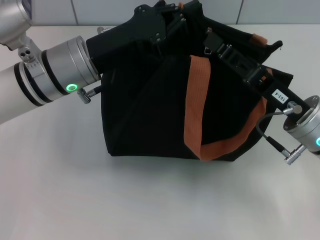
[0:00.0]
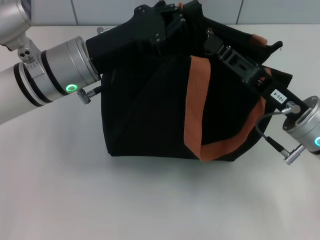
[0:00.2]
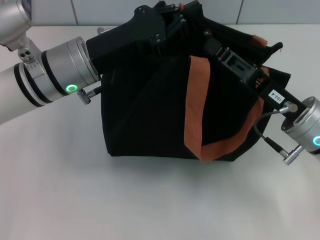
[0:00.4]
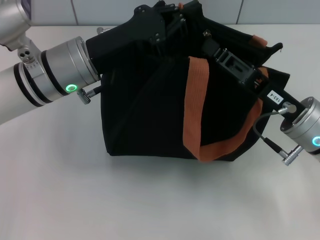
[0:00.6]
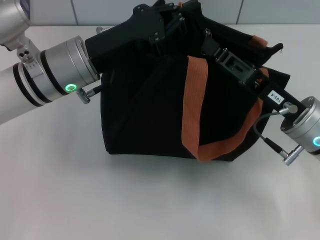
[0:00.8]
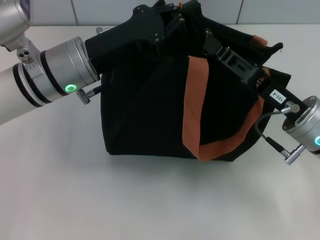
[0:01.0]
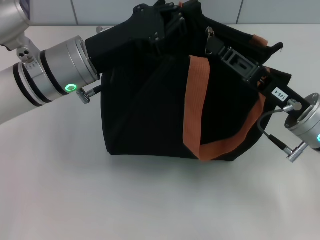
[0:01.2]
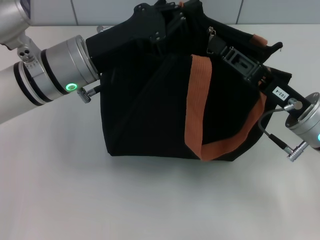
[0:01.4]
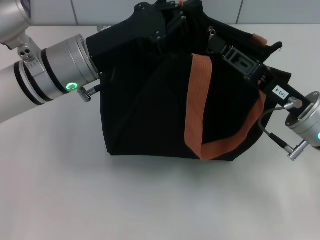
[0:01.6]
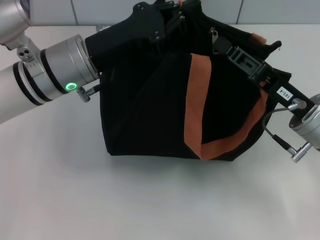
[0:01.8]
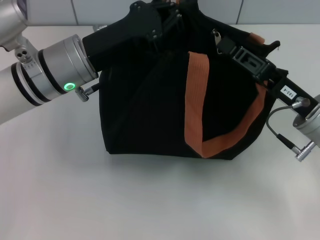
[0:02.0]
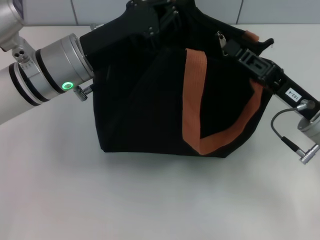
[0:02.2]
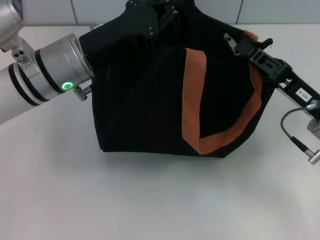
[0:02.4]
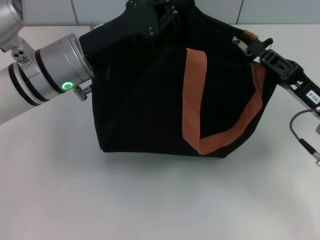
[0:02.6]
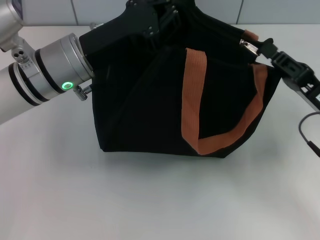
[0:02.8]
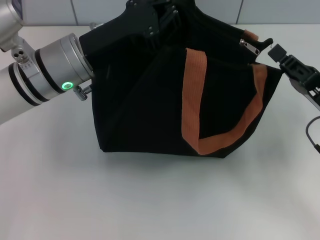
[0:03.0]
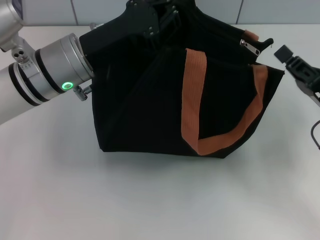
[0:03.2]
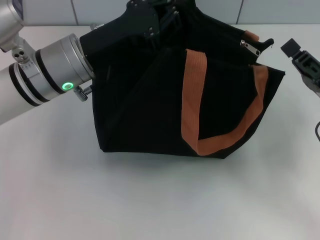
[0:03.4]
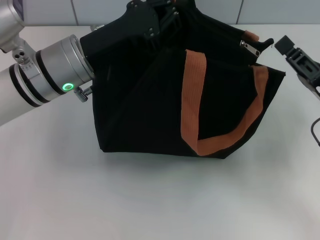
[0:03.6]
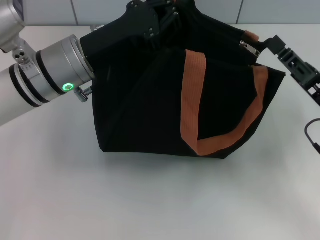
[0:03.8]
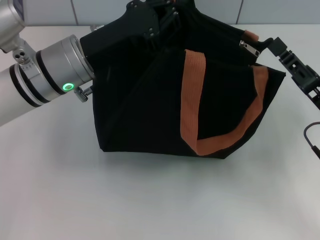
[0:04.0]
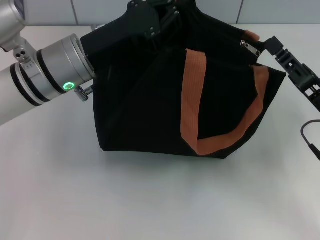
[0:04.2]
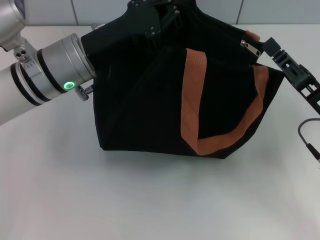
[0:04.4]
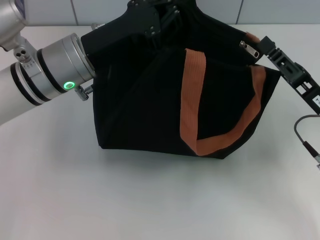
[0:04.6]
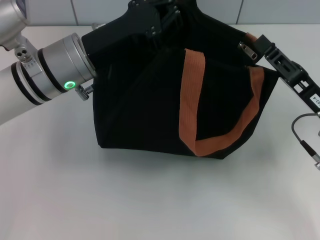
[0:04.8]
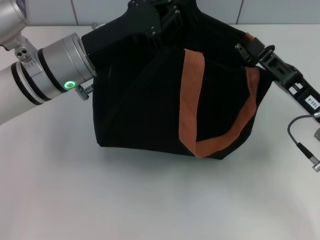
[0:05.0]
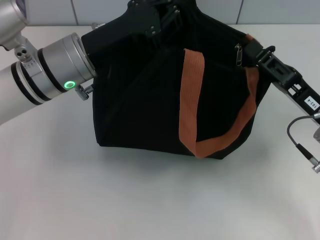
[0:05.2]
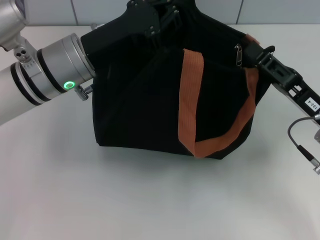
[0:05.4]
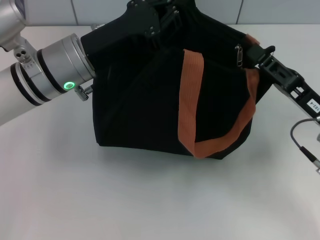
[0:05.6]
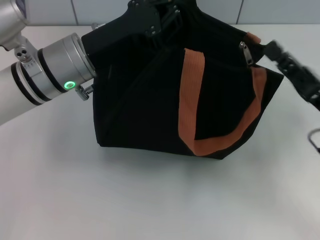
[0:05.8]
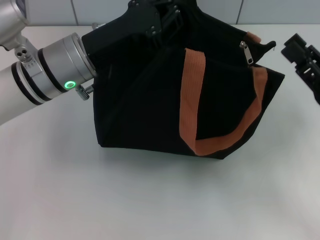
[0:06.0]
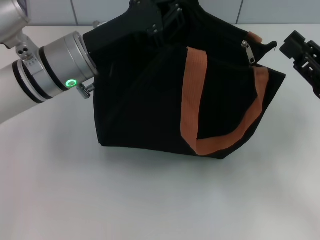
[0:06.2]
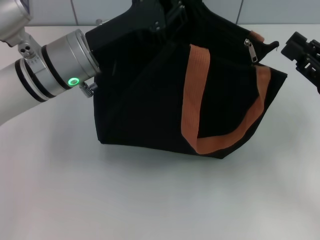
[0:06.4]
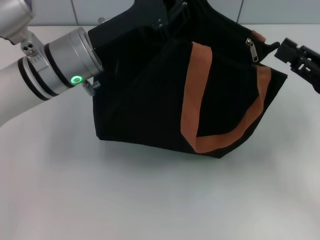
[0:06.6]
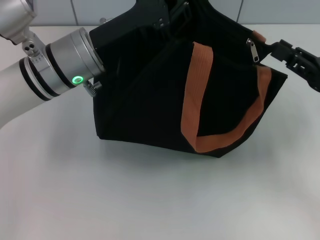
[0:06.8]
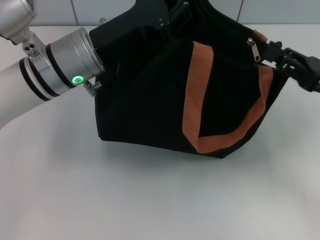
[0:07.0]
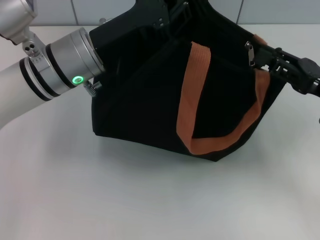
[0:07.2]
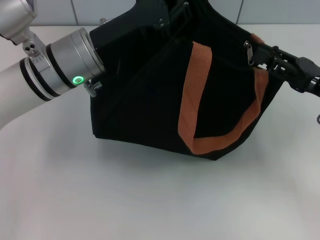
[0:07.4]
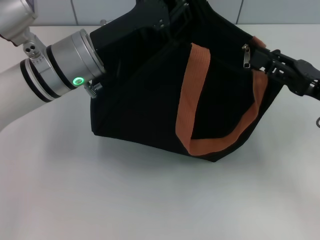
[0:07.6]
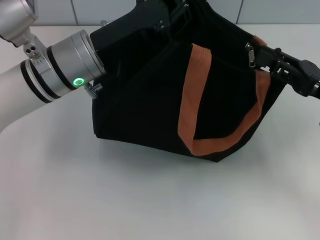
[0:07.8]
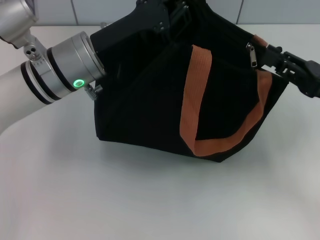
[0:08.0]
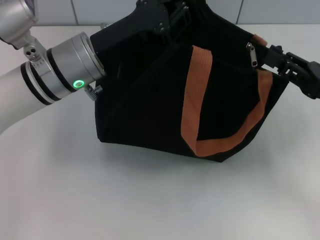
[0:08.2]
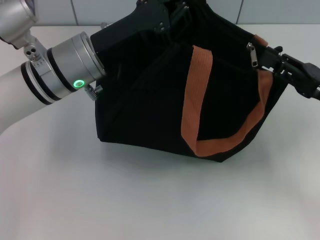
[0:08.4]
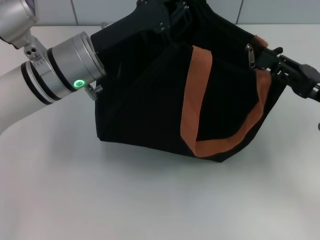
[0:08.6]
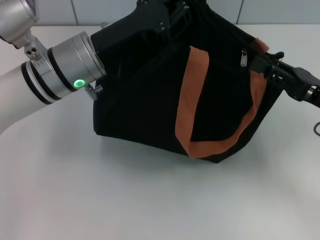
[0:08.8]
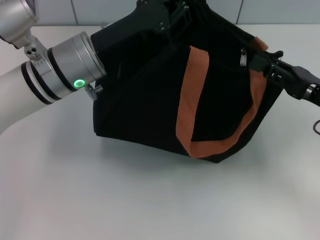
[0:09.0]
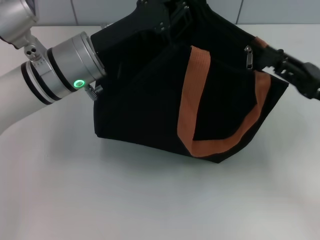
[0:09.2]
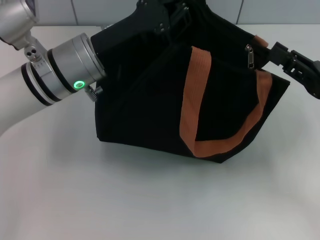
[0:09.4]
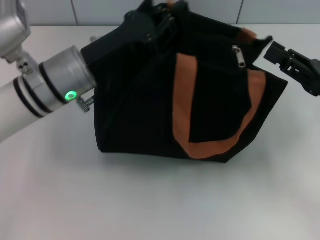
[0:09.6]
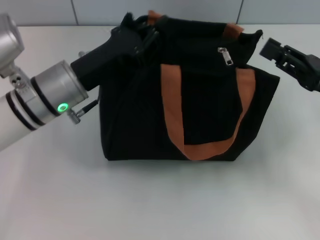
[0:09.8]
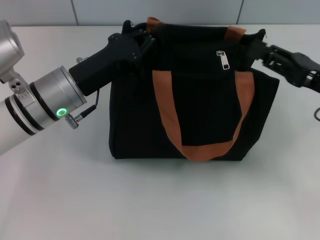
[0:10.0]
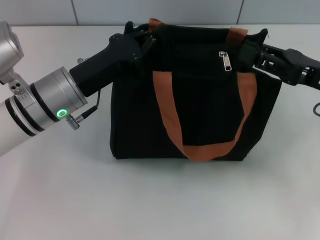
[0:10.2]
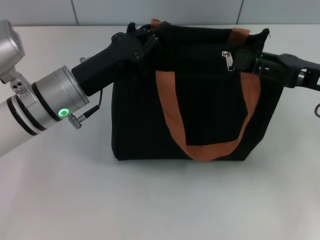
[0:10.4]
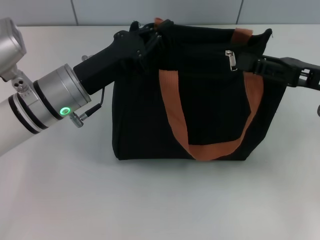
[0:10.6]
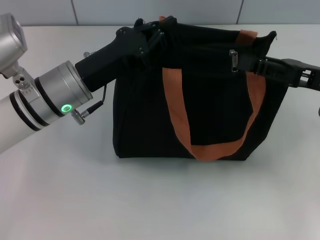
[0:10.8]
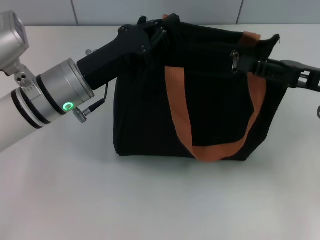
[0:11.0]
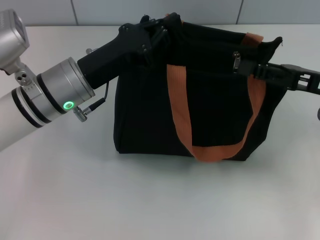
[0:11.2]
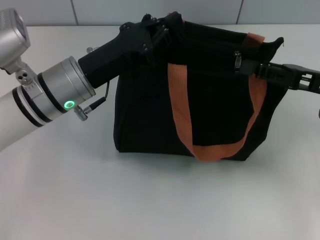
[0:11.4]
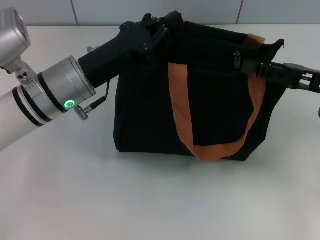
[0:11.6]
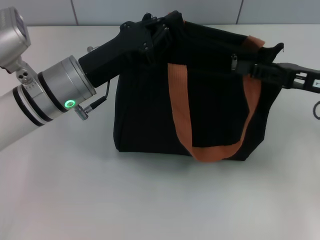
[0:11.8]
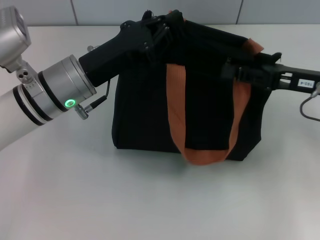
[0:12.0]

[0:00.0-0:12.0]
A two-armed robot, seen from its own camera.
0.0 to 1.6 s: The right gripper closes its fingers.
1.6 to 3.0 s: The right gripper is displaced to the right by some 5 cm.
3.0 to 4.4 s: The right gripper opens its fingers.
6.0 to 7.6 s: The grippers make only small movements.
7.6 to 9.0 s: Neither gripper changes place.
9.0 to 10.4 s: The left gripper ends up some 5 cm from where it was; the right gripper shifts by roughly 5 cm.
10.4 to 12.0 s: The grippers move only a little.

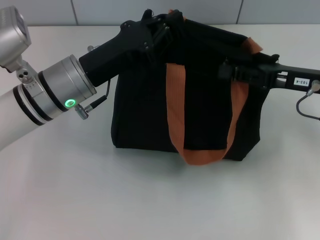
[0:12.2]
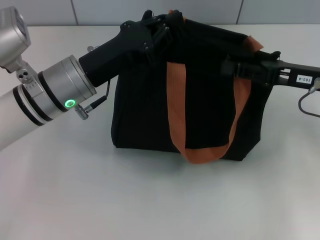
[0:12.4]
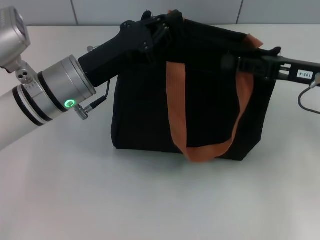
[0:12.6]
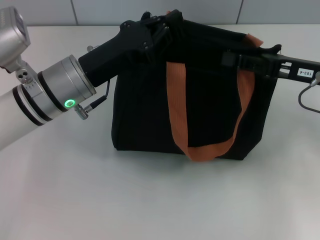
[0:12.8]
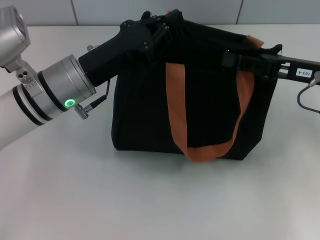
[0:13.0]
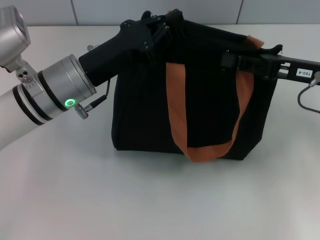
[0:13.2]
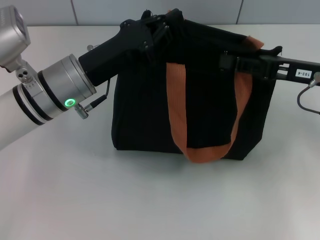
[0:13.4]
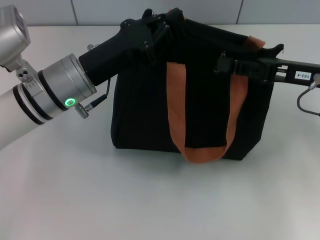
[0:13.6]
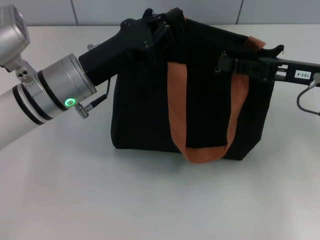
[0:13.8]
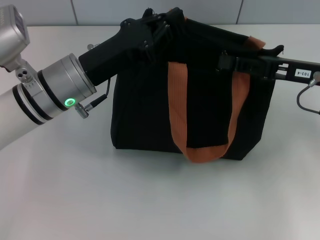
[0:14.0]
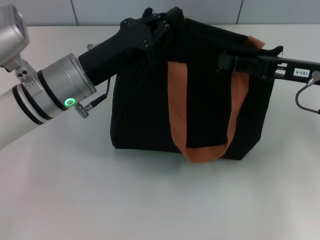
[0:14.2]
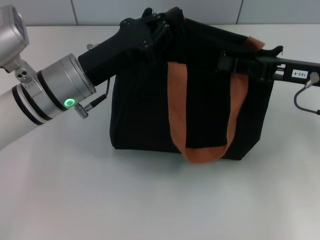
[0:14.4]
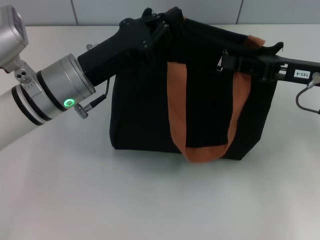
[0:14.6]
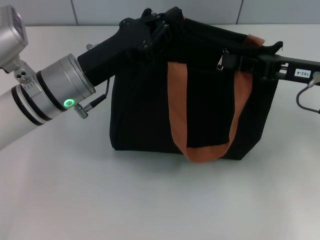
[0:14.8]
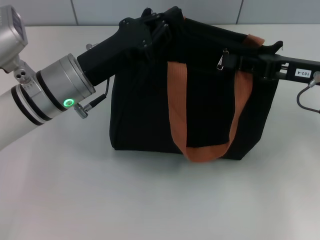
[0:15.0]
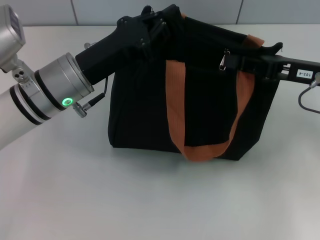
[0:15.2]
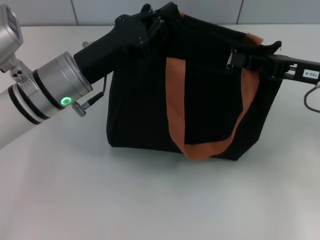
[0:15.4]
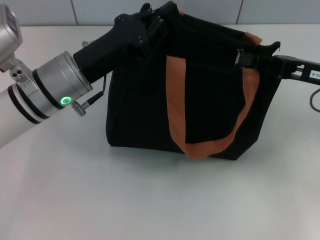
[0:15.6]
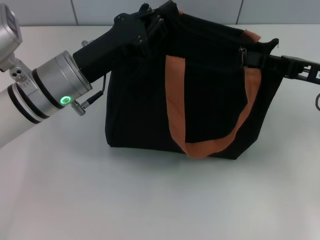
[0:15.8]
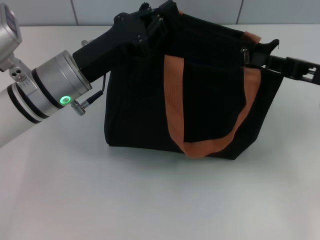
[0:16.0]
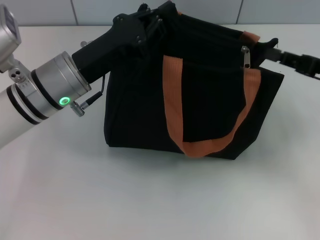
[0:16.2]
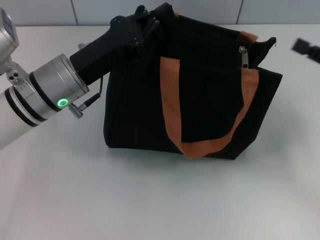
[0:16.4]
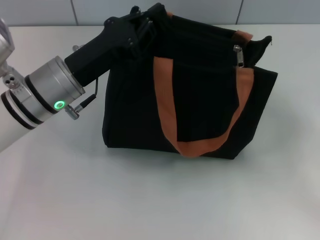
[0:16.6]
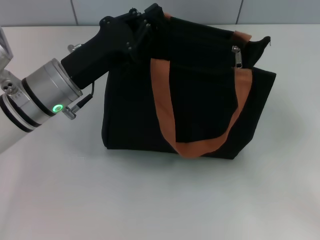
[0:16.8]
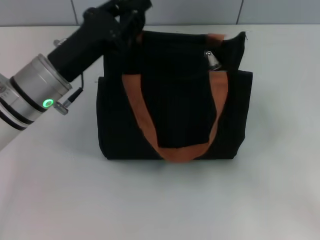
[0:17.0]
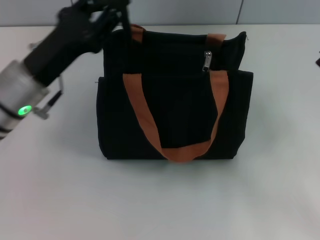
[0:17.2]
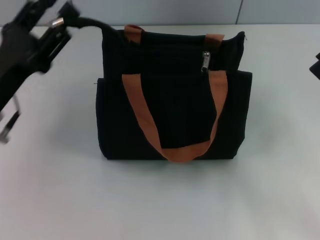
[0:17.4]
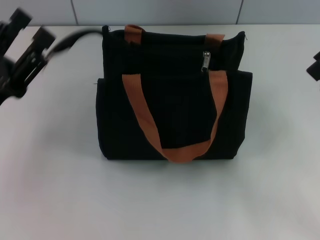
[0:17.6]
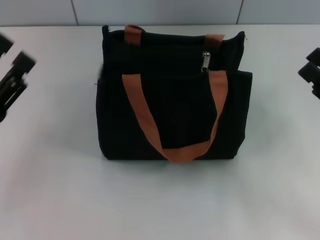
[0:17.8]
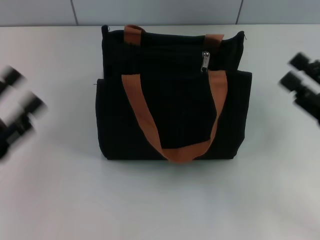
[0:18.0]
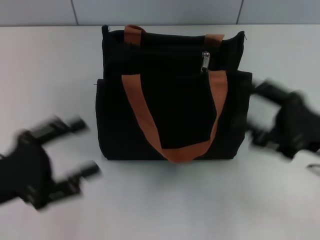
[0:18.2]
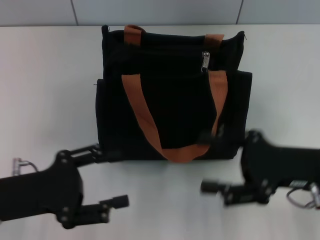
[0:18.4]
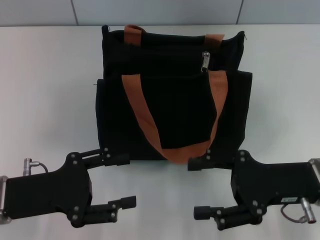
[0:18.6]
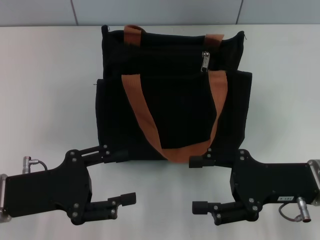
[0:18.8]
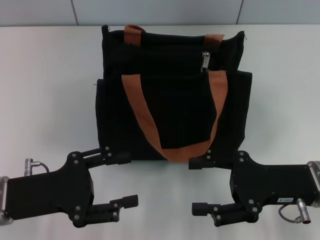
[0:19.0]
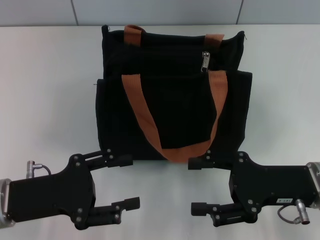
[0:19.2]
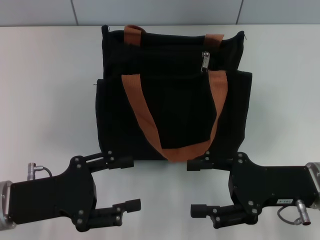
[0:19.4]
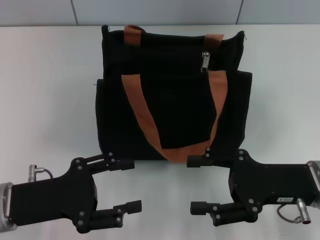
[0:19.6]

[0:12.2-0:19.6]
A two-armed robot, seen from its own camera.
Step, 12.2 to 16.0 s: Pull up the zipper with your right hand.
Step, 16.2 to 17.8 s: Grab the zipper with your left hand.
12.2 to 15.2 s: Both grippers stay about where they are.
15.2 to 16.6 s: The right gripper heads to the right and backward, covering some 10 cm.
16.6 to 18.2 s: The right gripper travels to the left by roughly 10 cm, and opens its fingers; the left gripper shifts approximately 20 cm backward and to the left, and opens its fingers.

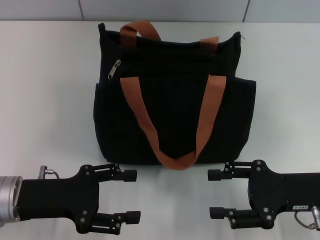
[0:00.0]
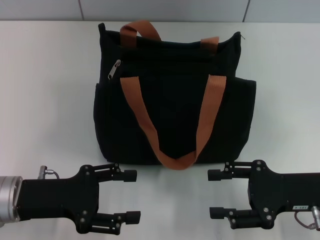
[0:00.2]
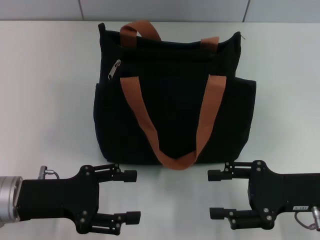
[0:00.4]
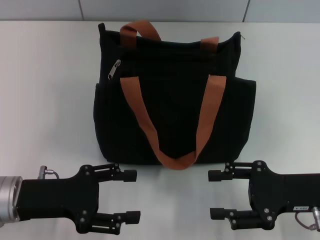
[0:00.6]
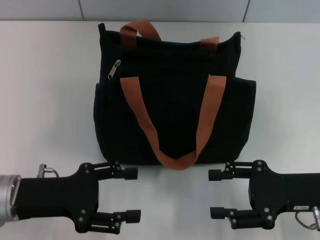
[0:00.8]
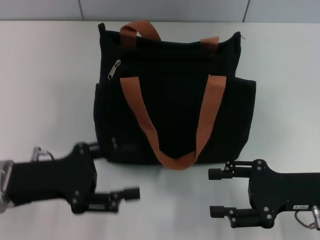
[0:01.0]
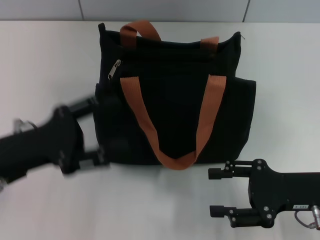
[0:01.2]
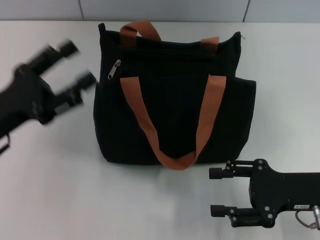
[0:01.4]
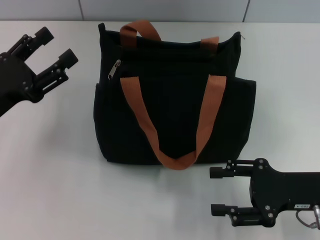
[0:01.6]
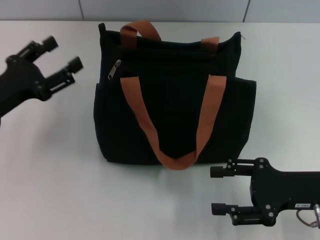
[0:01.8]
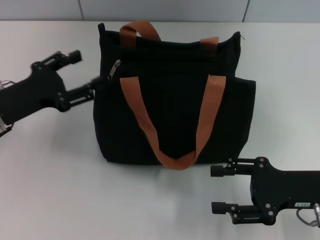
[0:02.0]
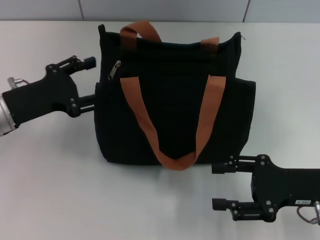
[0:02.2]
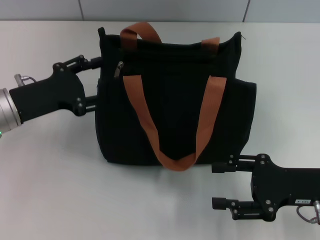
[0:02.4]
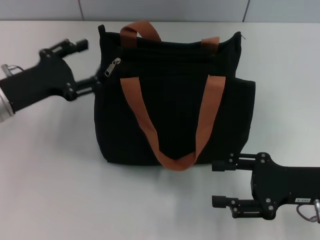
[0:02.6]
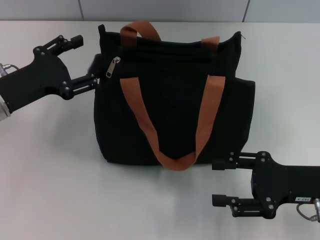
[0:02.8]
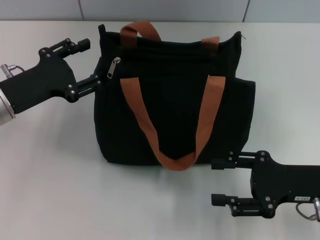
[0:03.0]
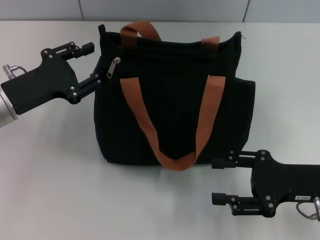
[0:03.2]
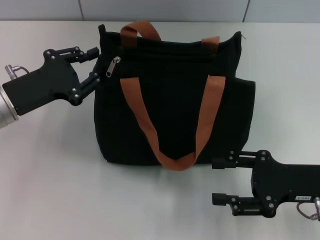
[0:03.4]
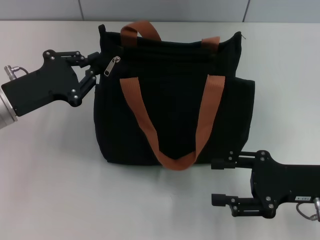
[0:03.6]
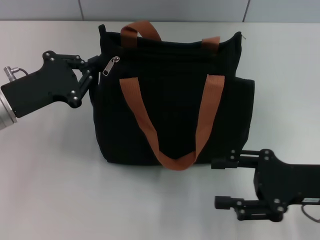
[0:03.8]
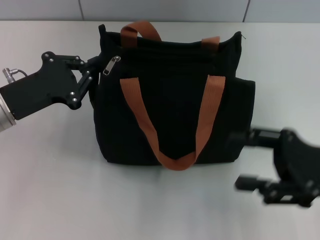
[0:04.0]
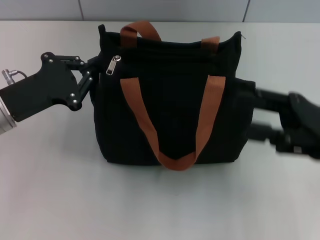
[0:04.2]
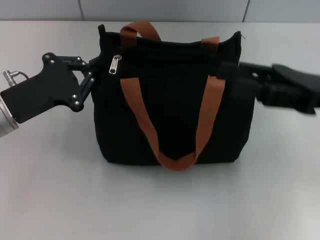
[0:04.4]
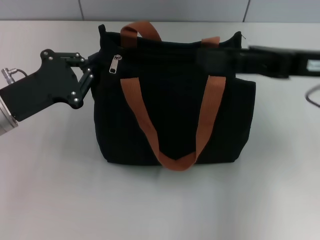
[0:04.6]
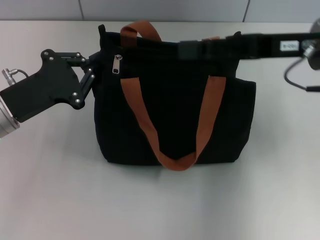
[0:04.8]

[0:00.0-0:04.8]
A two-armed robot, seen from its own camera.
0.0 to 1.6 s: The left gripper moves about 5 cm.
1.6 to 3.2 s: The left gripper ends up roughly 5 cm from where it was.
3.2 to 4.8 s: The left gripper closes; the right gripper heads upward and forward, covering roughly 15 cm.
